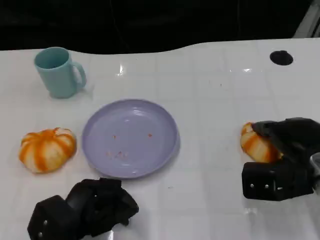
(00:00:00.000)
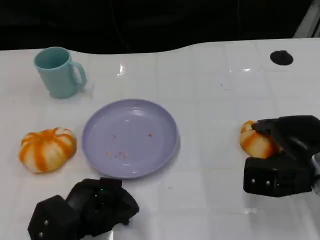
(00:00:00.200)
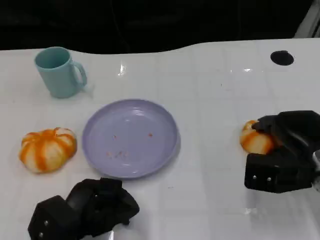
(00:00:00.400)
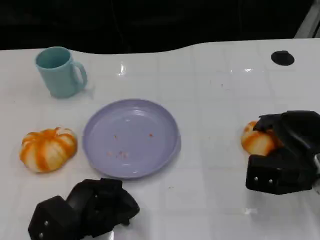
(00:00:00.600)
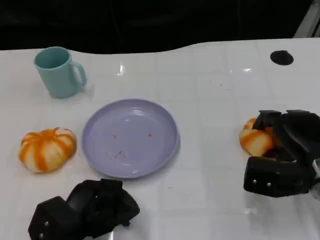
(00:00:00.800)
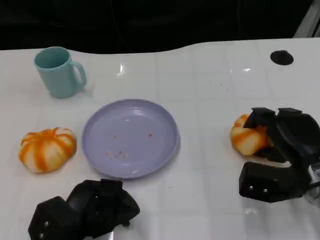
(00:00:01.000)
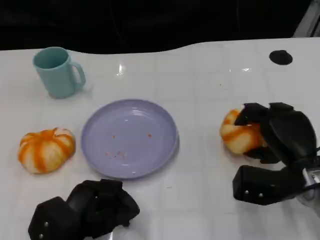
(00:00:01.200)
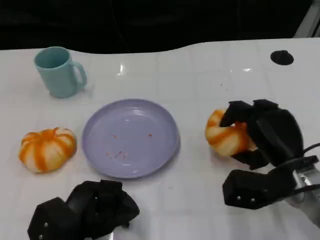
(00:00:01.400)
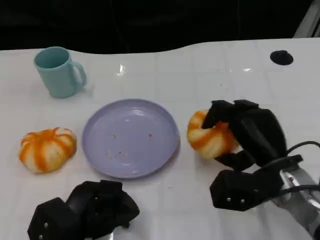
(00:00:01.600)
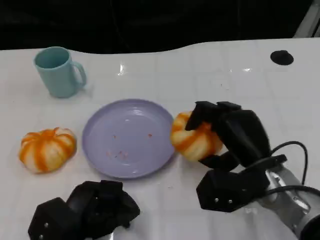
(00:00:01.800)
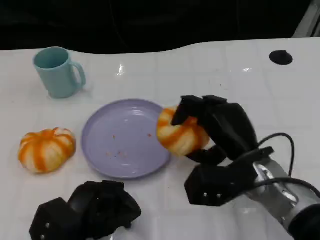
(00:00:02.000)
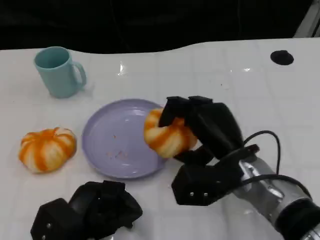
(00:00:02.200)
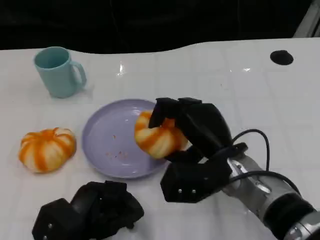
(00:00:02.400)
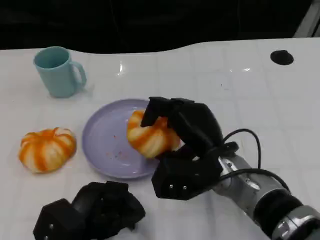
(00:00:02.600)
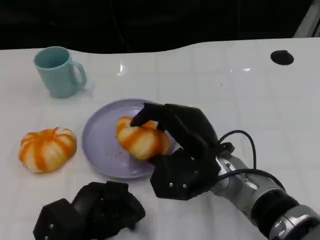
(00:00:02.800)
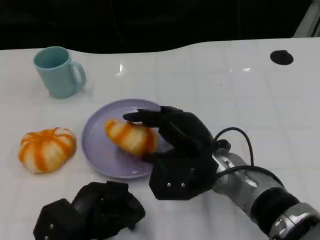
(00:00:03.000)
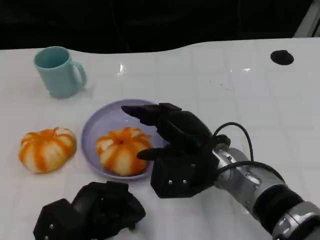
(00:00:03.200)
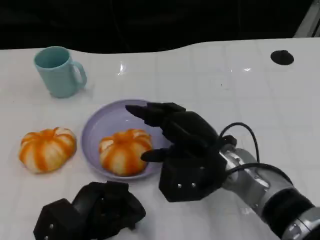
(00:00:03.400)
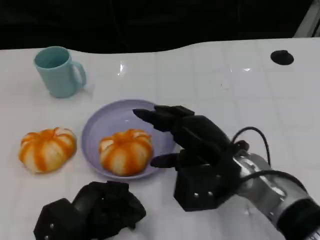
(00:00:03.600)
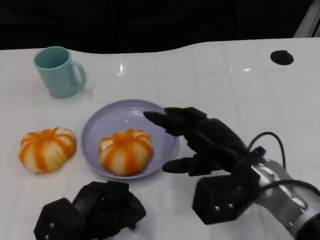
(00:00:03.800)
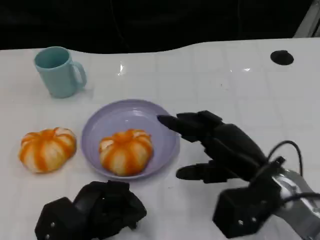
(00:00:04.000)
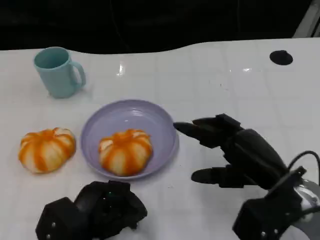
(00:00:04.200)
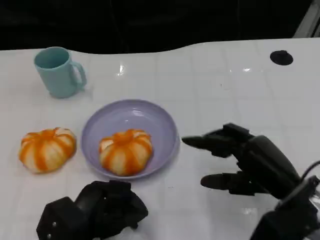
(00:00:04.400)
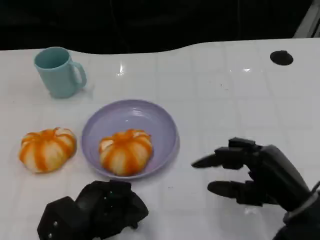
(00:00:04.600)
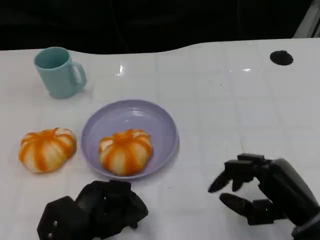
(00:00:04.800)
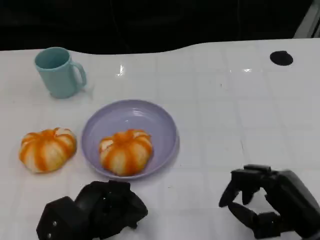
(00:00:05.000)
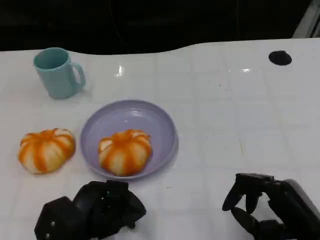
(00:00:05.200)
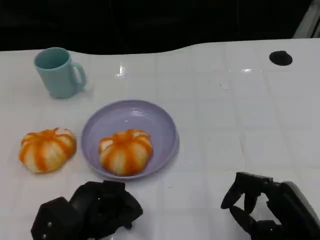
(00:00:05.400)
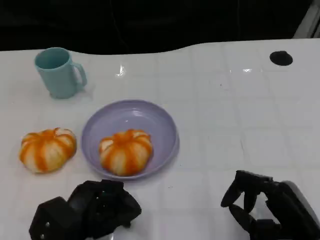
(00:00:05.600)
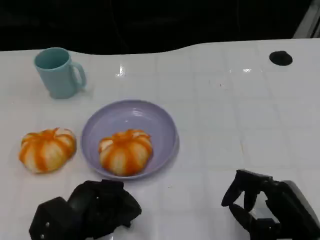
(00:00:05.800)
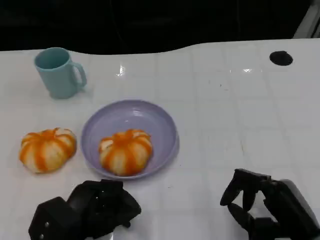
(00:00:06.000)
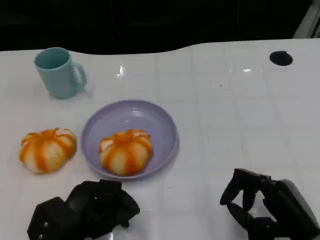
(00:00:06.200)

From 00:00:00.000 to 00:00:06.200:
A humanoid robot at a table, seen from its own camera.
Task of the whole recording: Grasp the bread from the table and place it into the plate.
From 00:00:00.000 to 00:00:01.600: The right hand shifts about 5 cm to the left.
From 00:00:01.600 to 00:00:03.200: The right hand travels to the left by approximately 10 cm.
From 00:00:03.200 to 00:00:04.600: The right hand heads to the right and backward, covering about 15 cm.
From 00:00:04.600 to 00:00:06.200: There are only small adjustments of the hands.
